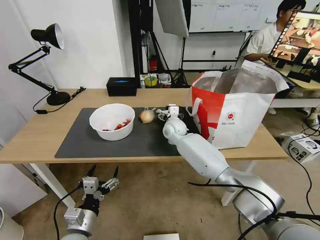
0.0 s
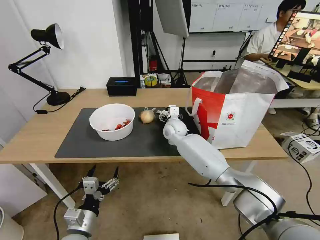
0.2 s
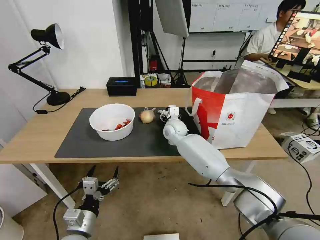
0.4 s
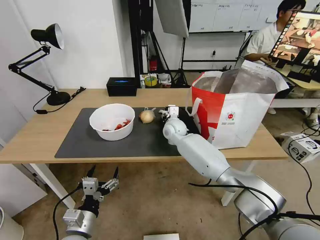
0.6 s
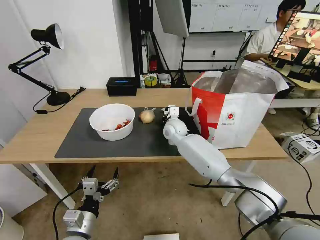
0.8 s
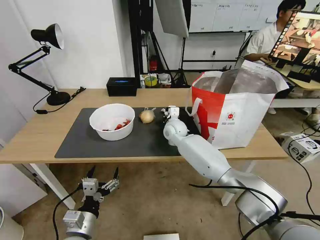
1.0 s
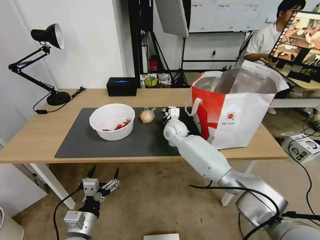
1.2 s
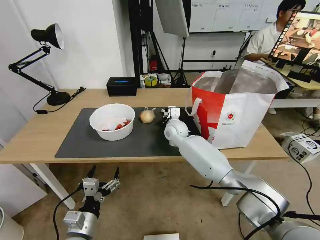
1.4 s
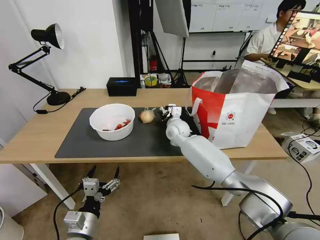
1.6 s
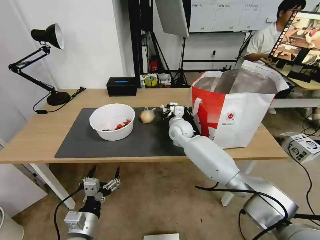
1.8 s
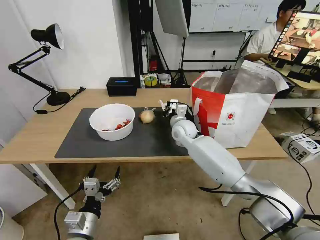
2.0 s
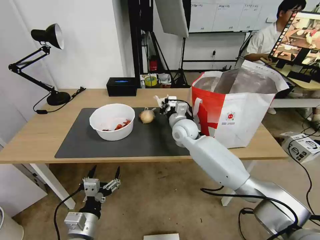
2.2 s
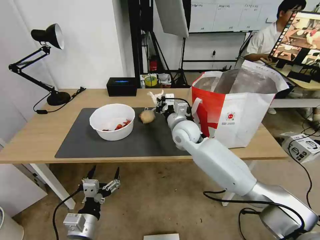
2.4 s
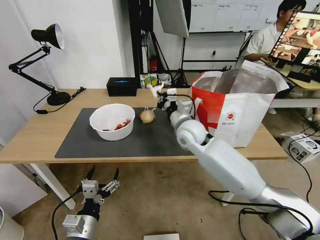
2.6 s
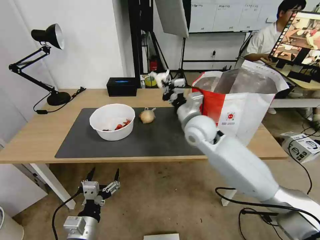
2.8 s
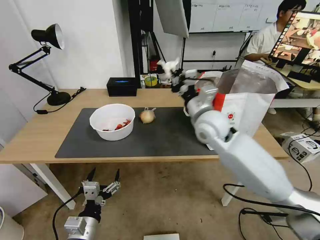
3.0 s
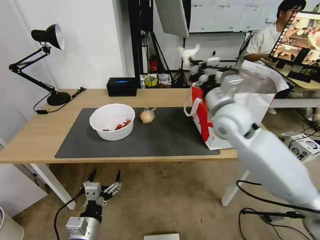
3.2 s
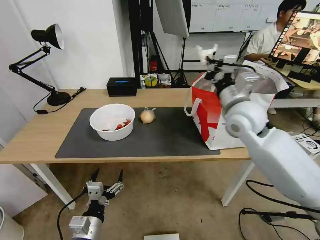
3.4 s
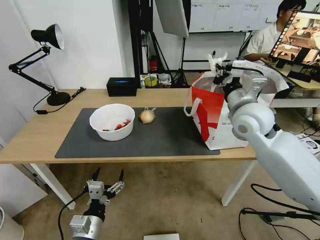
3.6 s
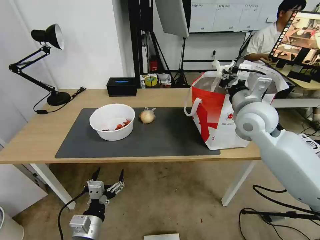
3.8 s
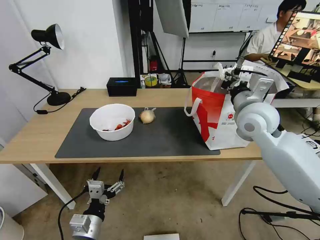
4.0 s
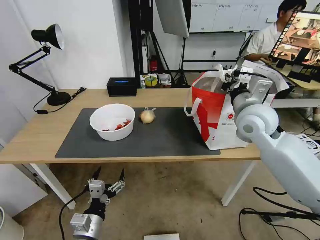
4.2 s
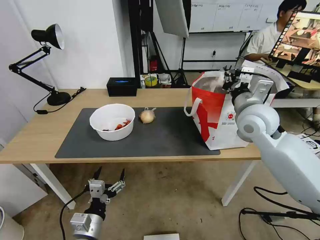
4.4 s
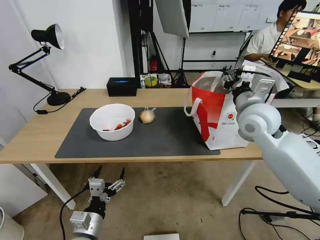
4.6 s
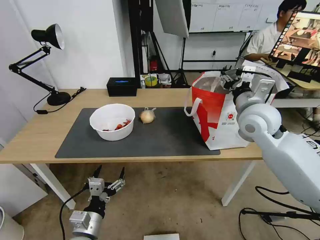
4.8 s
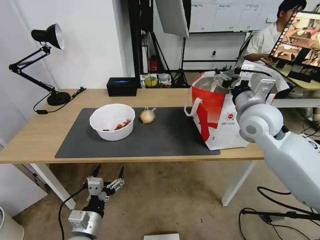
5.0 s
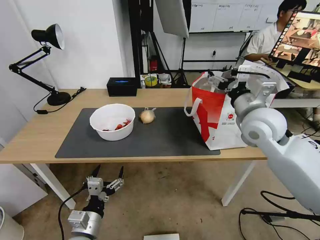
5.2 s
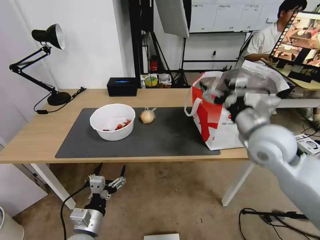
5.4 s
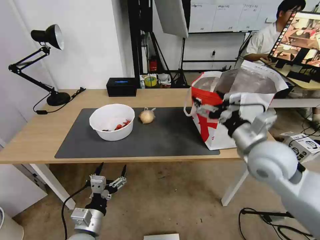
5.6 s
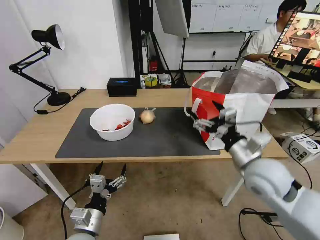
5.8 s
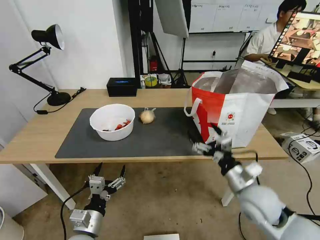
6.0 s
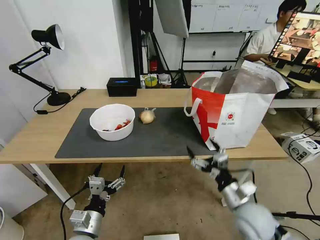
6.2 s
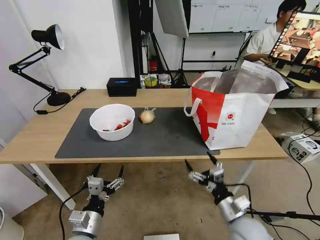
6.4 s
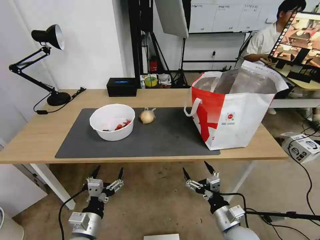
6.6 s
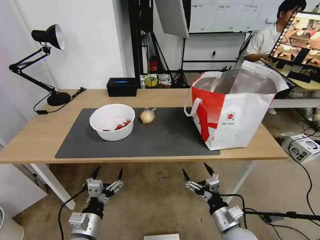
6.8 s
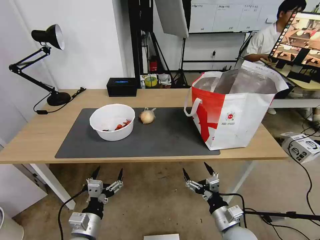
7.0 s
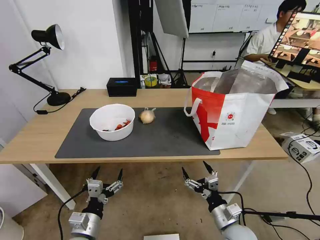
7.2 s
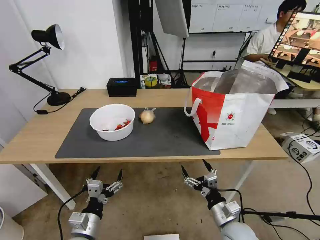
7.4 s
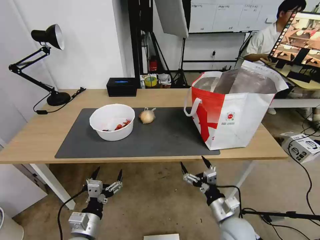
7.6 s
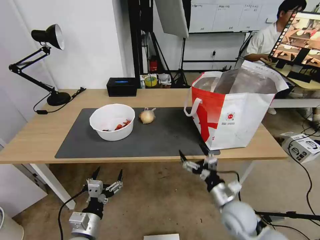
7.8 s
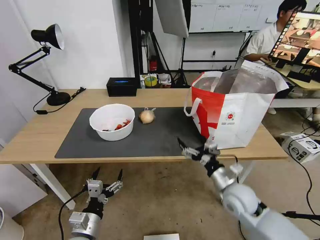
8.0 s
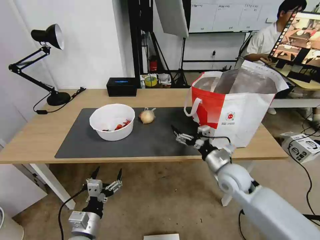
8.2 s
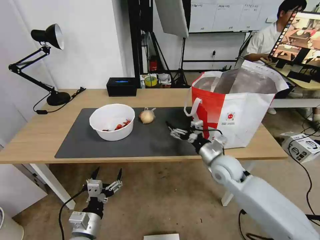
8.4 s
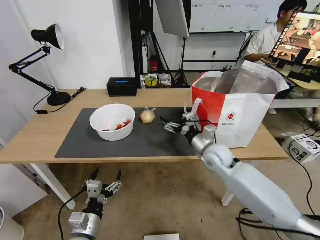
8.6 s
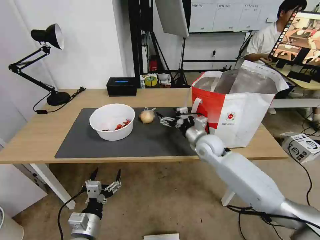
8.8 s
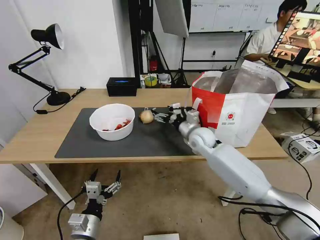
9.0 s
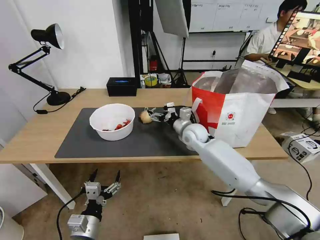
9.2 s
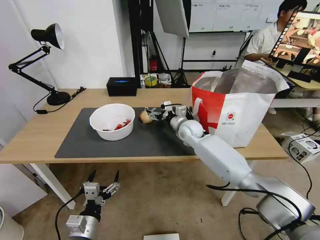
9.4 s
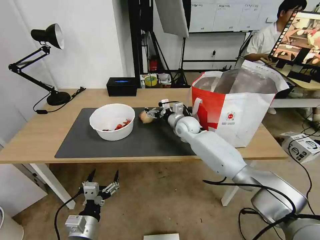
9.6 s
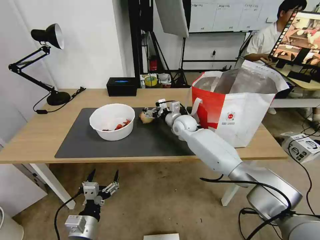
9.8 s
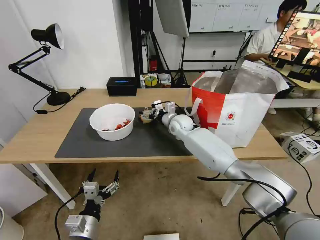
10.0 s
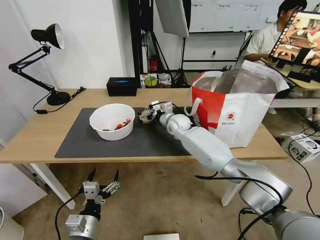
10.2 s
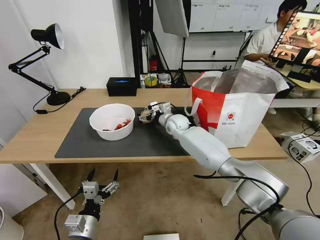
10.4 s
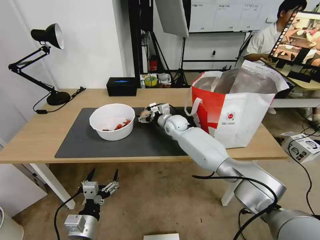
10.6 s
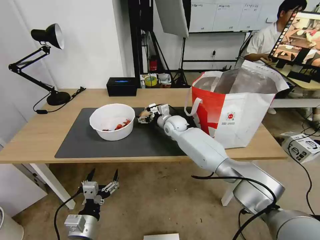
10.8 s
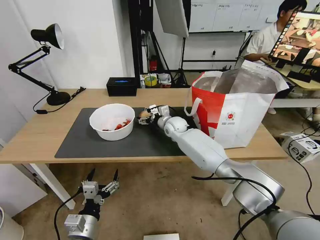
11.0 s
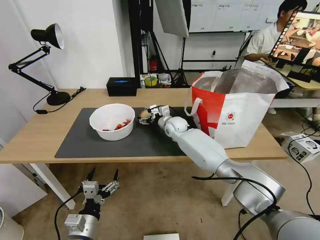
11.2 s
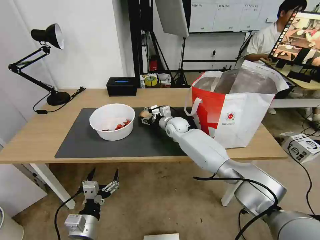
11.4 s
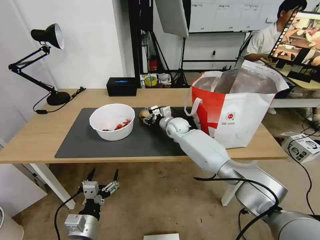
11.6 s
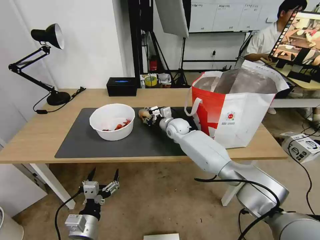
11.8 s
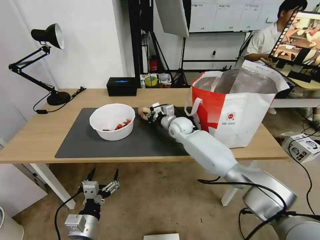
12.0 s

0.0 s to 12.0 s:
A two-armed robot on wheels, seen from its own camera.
Task of the whole recording: Pick up the trash from the table and place it into the takeout bag.
0.0 to 1.6 s: The right gripper closes up.
1.6 to 3.0 s: The right gripper moves upward, backward and to the right, approximately 20 cm.
3.0 to 4.4 s: The right gripper travels to the right by some 10 cm.
4.4 to 6.0 s: The right gripper is displaced backward and downward by roughly 20 cm, and opens up.
6.0 to 7.6 s: The right gripper is displaced downward and backward by roughly 15 cm.
7.6 to 9.0 s: The right gripper goes about 30 cm forward and upward.
9.0 to 10.4 s: The right gripper goes approximately 15 cm forward and to the left.
10.4 to 12.0 s: The right gripper closes.

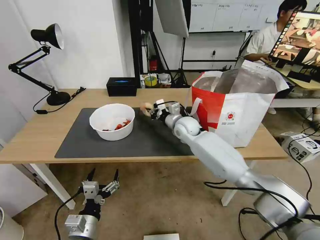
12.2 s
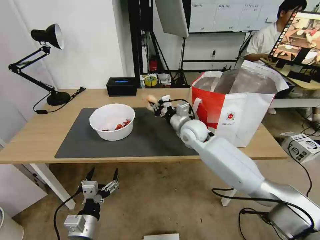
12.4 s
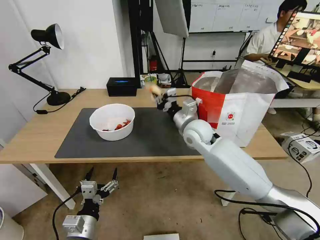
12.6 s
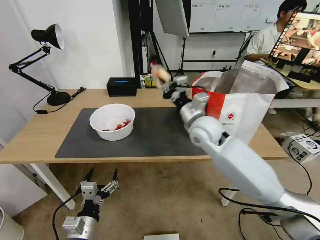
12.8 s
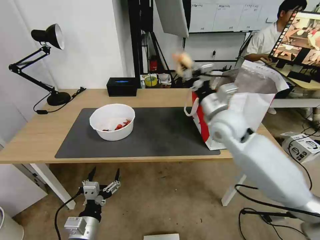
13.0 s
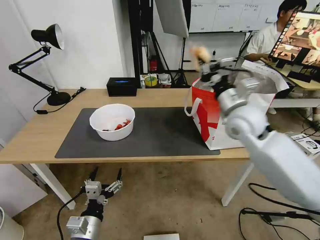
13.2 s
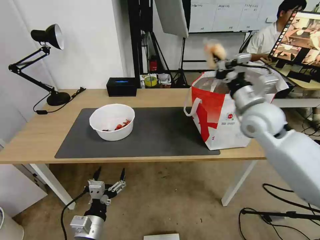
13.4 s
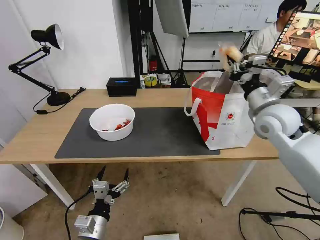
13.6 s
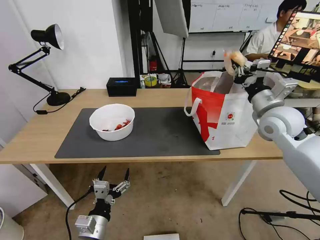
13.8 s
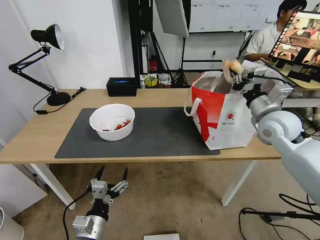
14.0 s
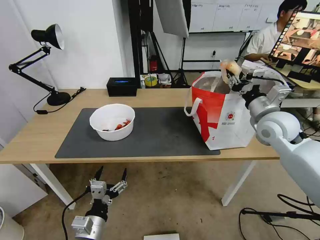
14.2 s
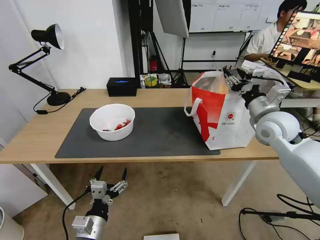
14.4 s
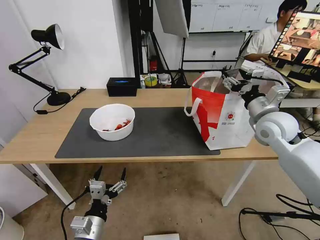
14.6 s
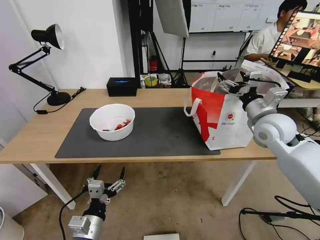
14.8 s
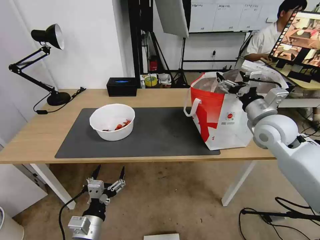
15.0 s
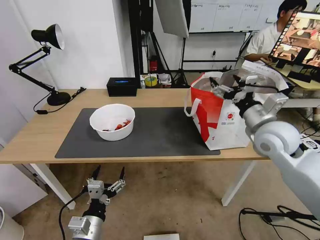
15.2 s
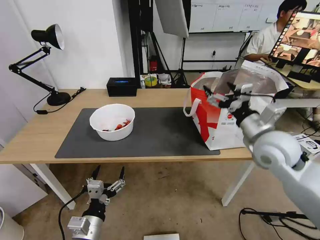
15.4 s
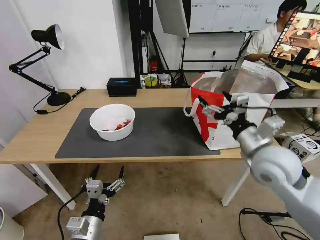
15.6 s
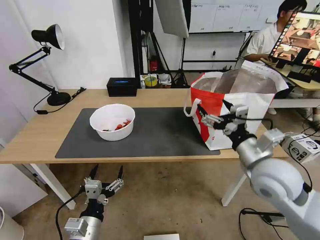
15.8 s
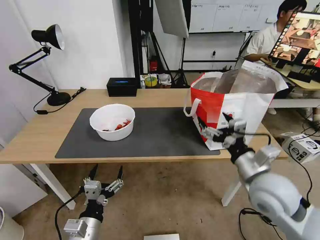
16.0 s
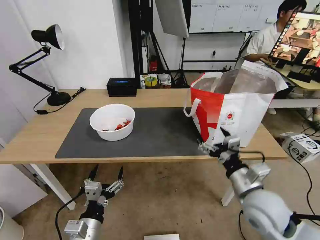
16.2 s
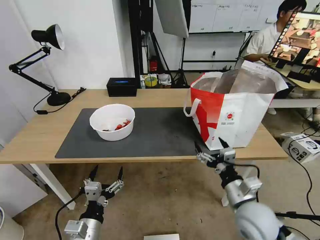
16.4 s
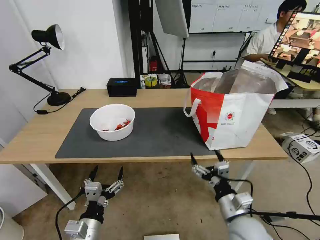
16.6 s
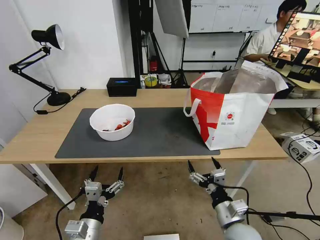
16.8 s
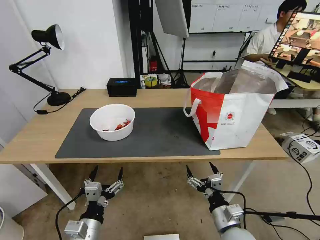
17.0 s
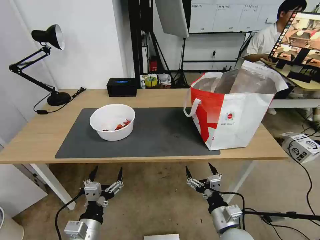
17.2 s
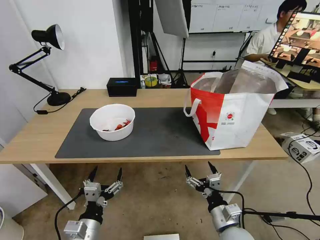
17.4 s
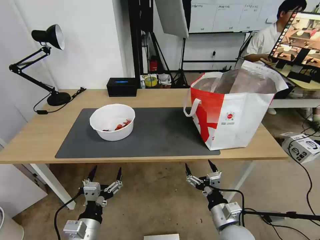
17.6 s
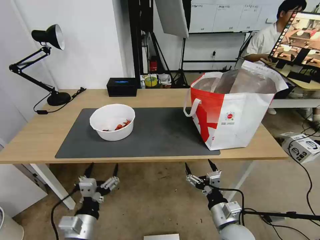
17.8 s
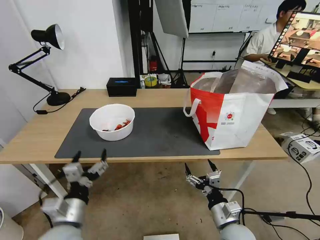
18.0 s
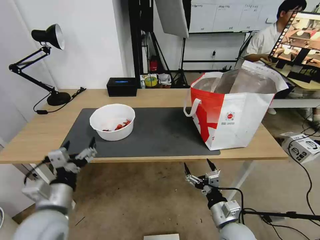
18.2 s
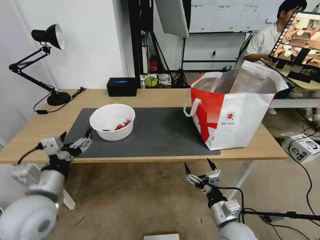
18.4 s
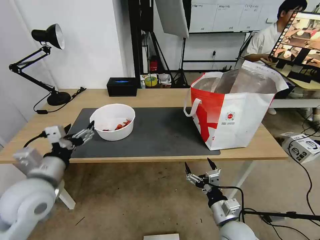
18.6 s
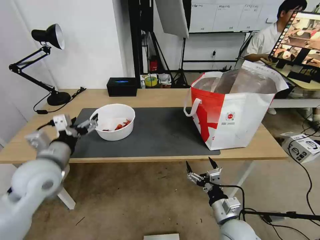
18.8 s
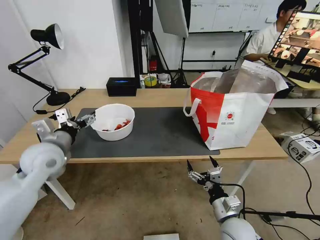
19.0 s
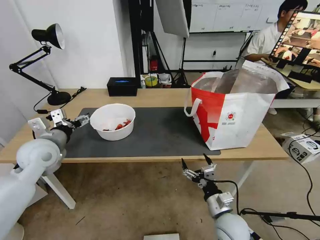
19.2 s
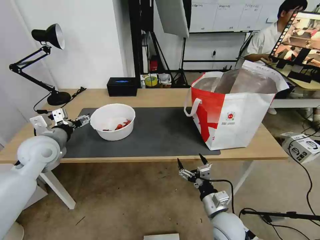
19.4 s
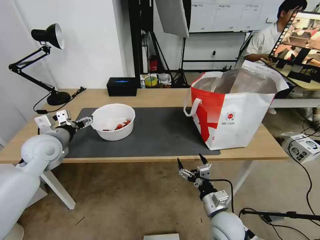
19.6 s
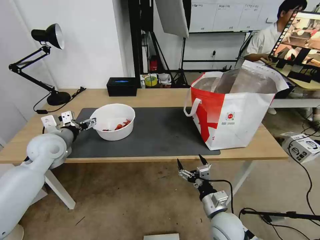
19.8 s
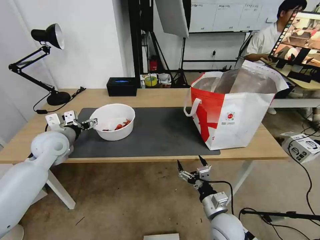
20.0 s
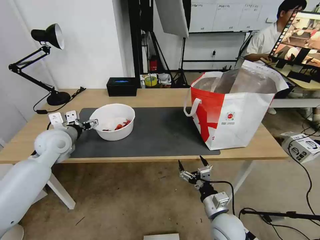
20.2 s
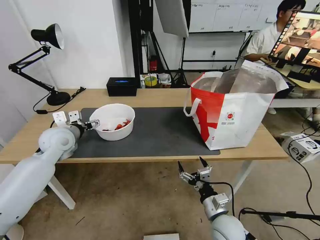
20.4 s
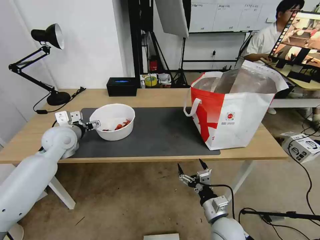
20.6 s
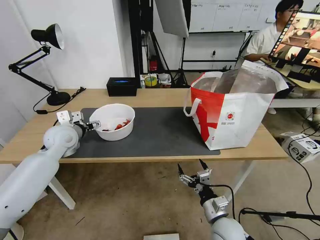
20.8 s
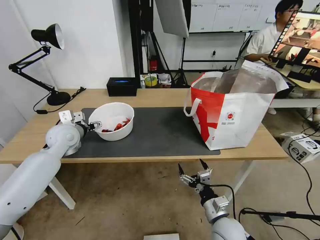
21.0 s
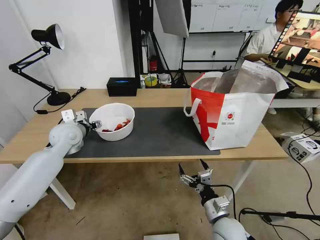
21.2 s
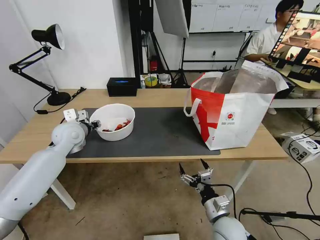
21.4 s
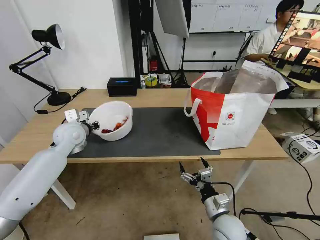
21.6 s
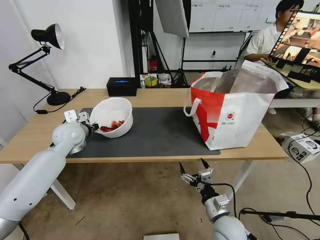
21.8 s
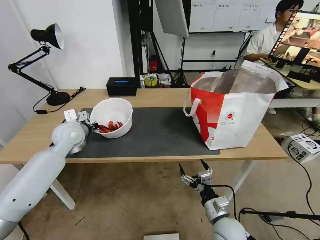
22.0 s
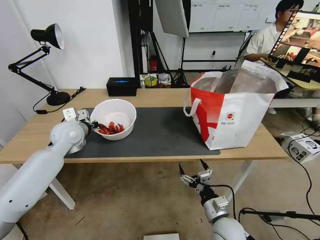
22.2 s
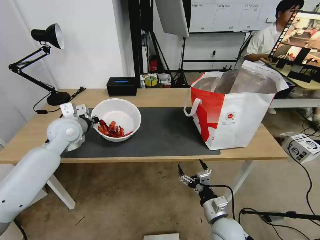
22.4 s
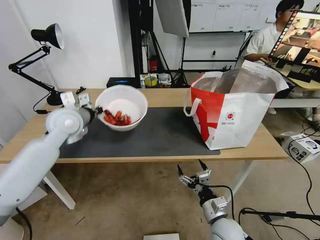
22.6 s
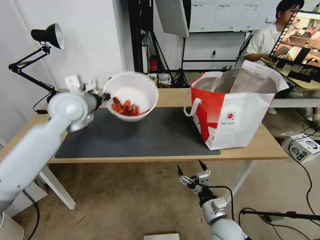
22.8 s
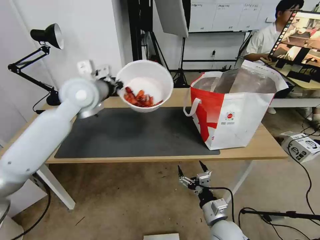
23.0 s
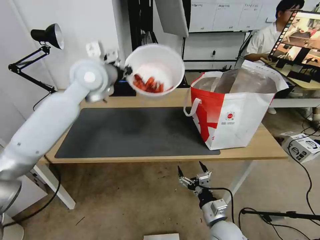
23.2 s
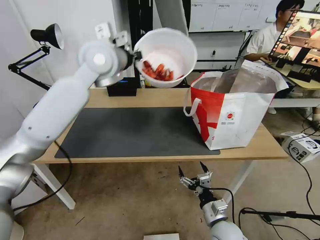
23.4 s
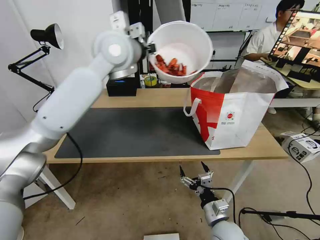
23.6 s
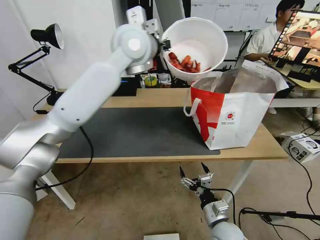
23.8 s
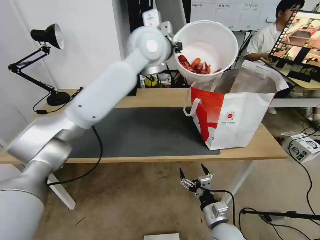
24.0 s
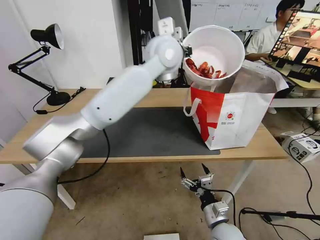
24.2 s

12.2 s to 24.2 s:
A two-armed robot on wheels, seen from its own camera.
Task of the whole recording: Pick up the trash from the table and place it into the takeout bag.
12.2 to 13.8 s: The right gripper travels to the right, upward and backward by about 30 cm.
13.8 to 15.2 s: The right gripper moves approximately 5 cm, and opens.
15.2 to 16.6 s: The right gripper is displaced backward and downward by some 25 cm.
16.6 to 18.2 s: The right gripper shifts roughly 10 cm downward. Meanwhile the left gripper shifts some 10 cm upward and forward.
18.2 to 19.8 s: The left gripper goes some 20 cm forward.
19.8 to 21.2 s: The left gripper moves forward, approximately 5 cm.
21.2 to 22.6 s: The left gripper heads upward, covering some 10 cm, and closes up.
22.6 to 24.2 s: The left gripper goes some 30 cm to the right and upward.
